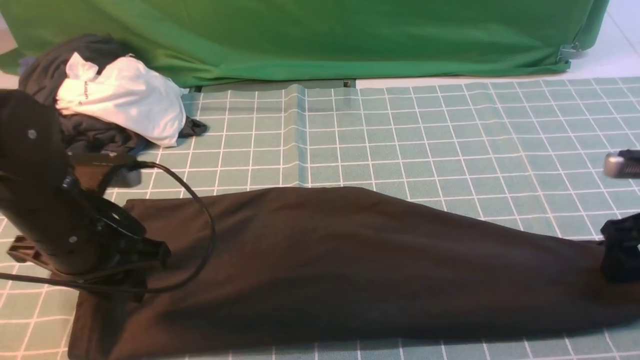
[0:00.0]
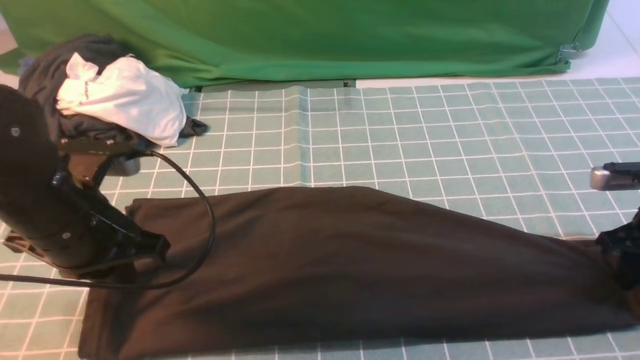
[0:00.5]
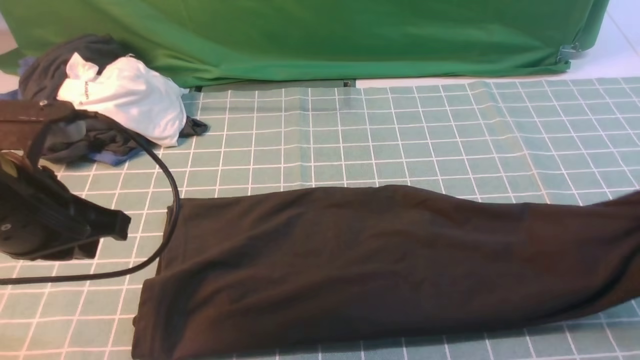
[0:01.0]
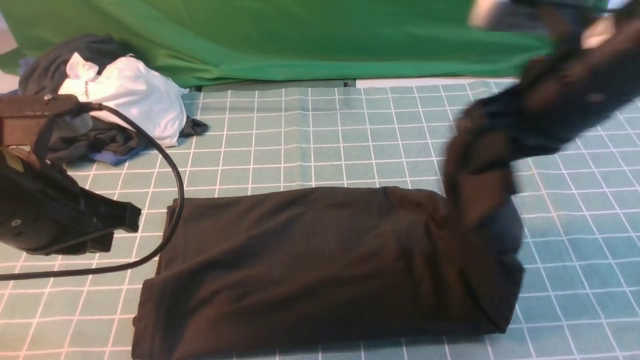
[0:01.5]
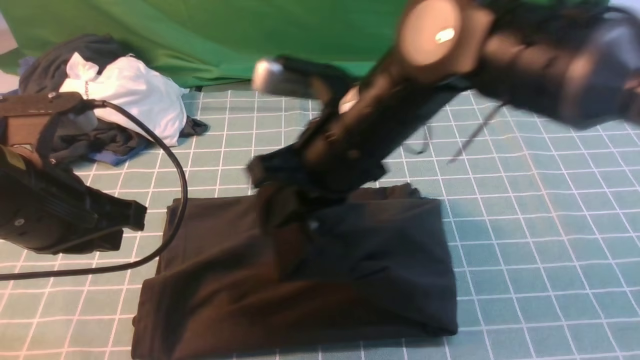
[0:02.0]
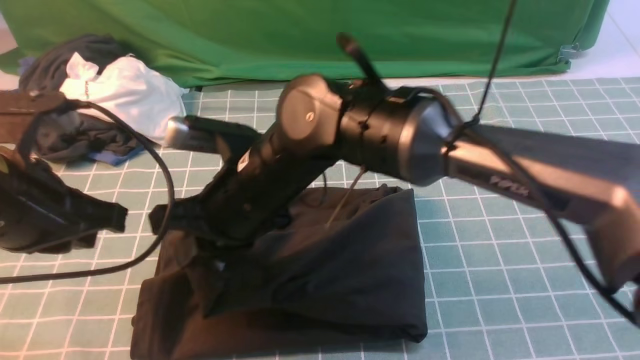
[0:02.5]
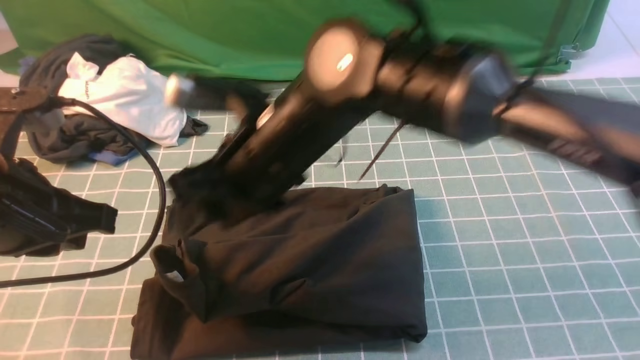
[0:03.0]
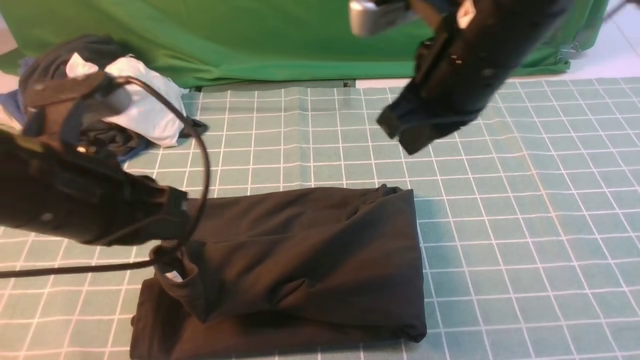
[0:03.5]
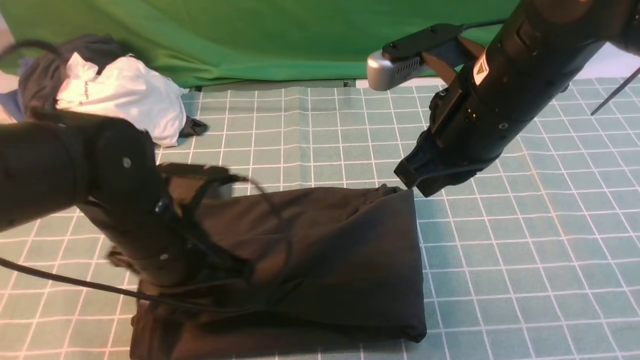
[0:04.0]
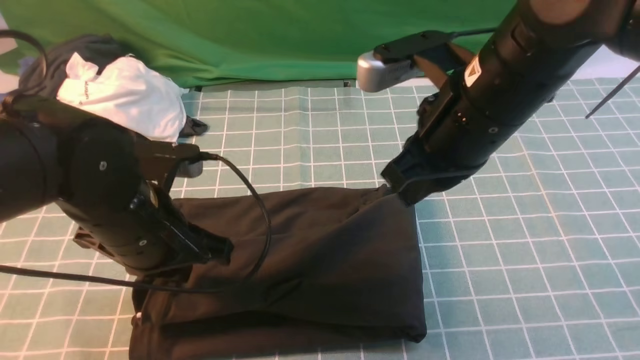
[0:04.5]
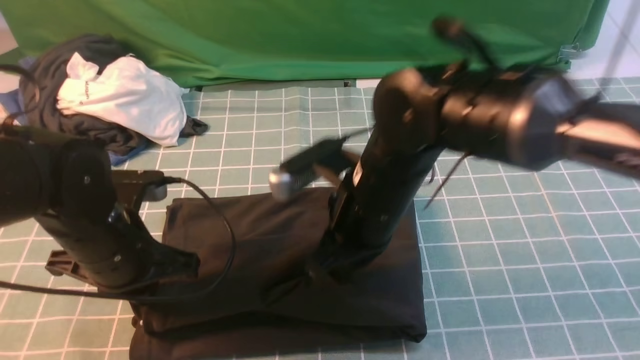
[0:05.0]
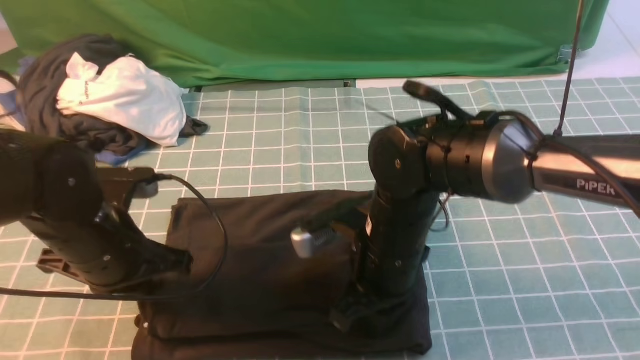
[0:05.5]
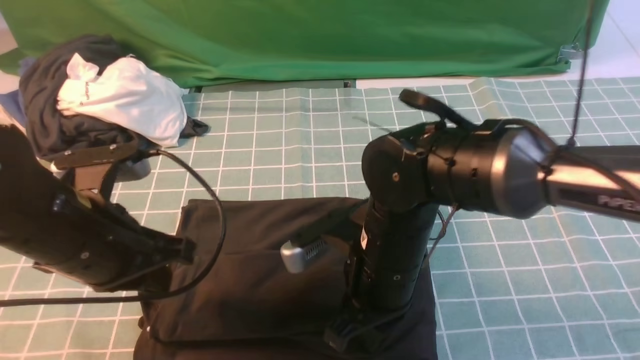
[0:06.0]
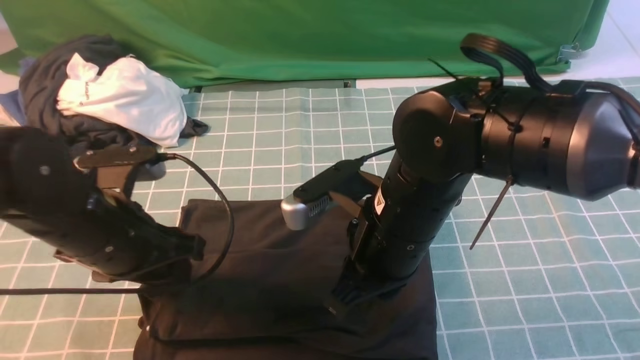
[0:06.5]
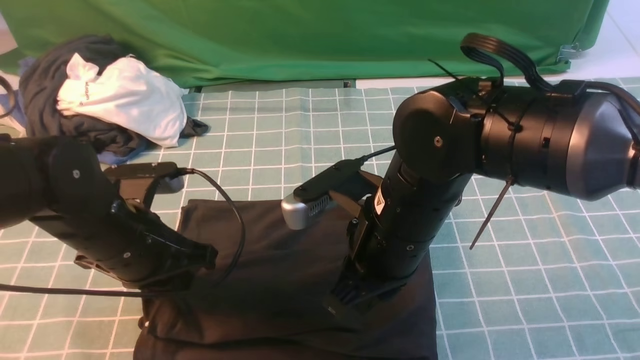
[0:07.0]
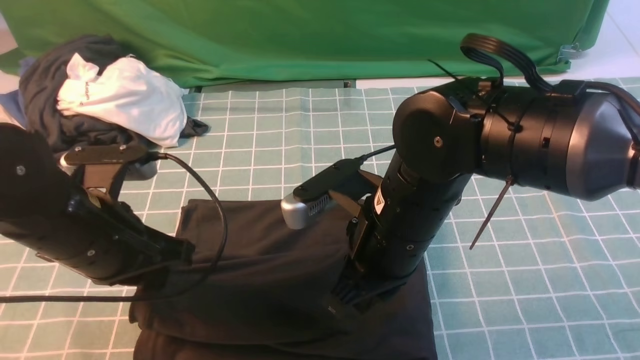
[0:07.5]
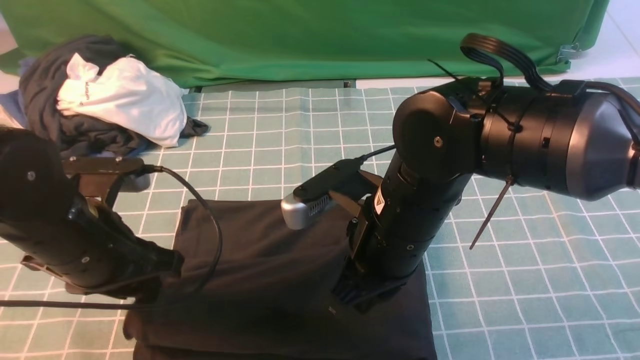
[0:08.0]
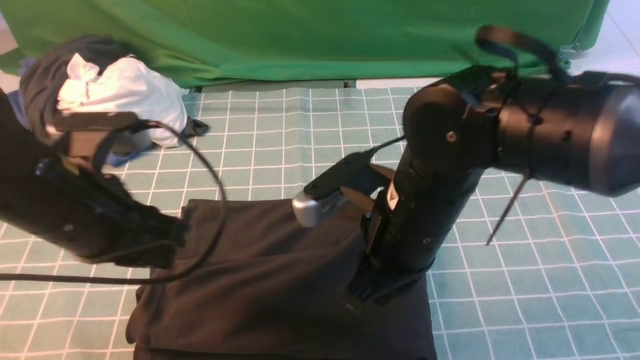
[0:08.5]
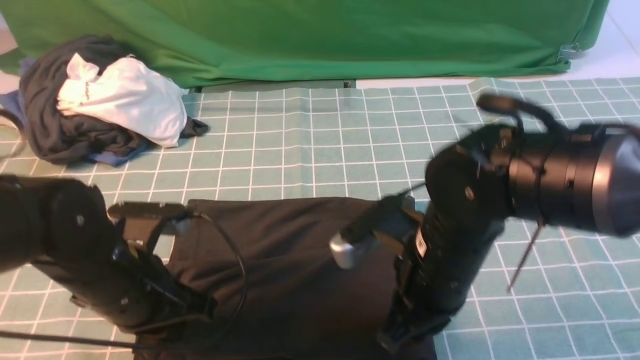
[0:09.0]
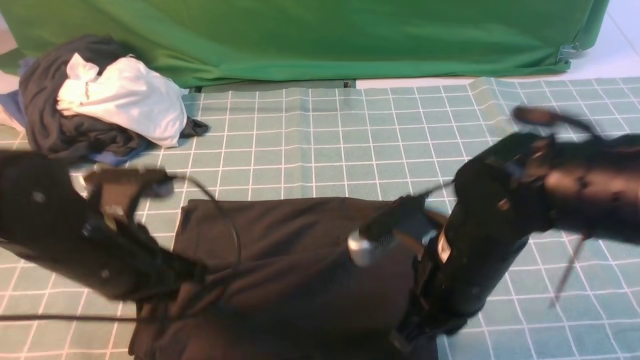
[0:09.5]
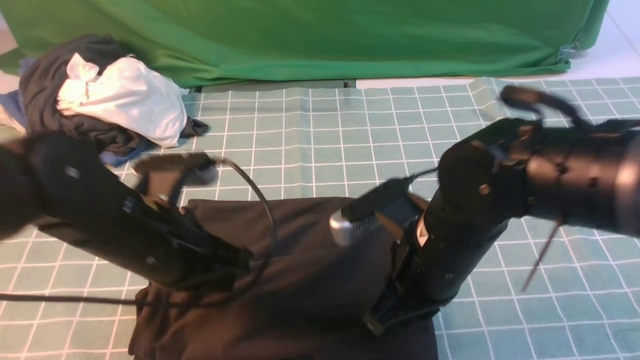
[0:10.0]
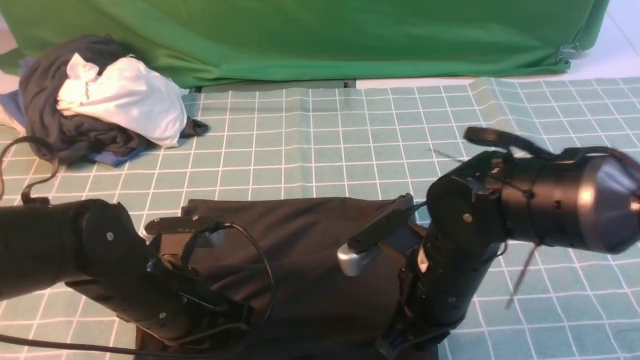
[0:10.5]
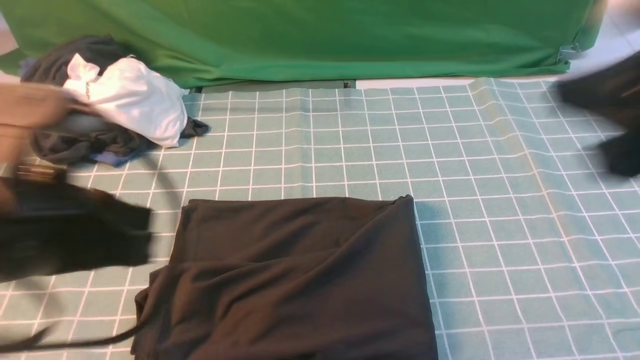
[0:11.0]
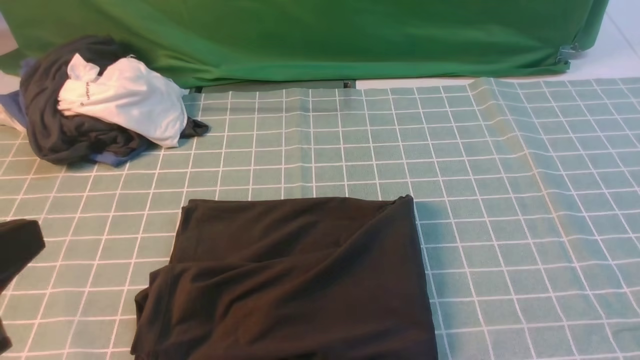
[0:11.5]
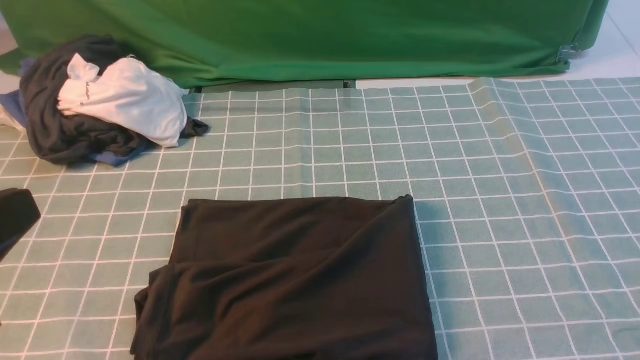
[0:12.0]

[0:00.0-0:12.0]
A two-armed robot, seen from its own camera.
Step, 0:01.0 to 0:03.5: use the right arm to drag the right edge of the fabric to the left and folds it over the left edge.
0:00.0 to 0:02.0: The left gripper travels upward by roughly 5 cm, and closes; the right gripper travels to the left by roughly 35 cm, and closes its fingers.
0:02.0 to 0:04.0: The right gripper goes some 10 cm to the right, and opens, then closes once more; the left gripper shifts roughly 10 cm to the right and downward, and opens.
0:04.0 to 0:06.0: The left gripper heads to the left, covering roughly 5 cm; the right gripper shifts approximately 15 cm downward and to the left.
0:06.0 to 0:08.0: The left gripper opens up.
0:08.0 to 0:10.0: The left gripper is displaced to the right by about 5 cm, moves about 5 cm downward and comes back, and closes.
0:10.0 to 0:12.0: The right gripper is displaced to the right, backward and upward by approximately 35 cm, while the left gripper moves backward, upward and to the left, roughly 25 cm.

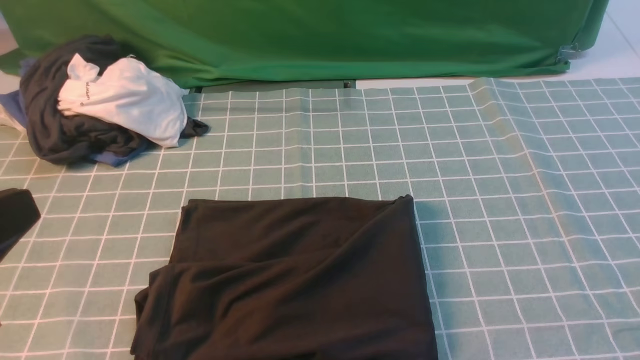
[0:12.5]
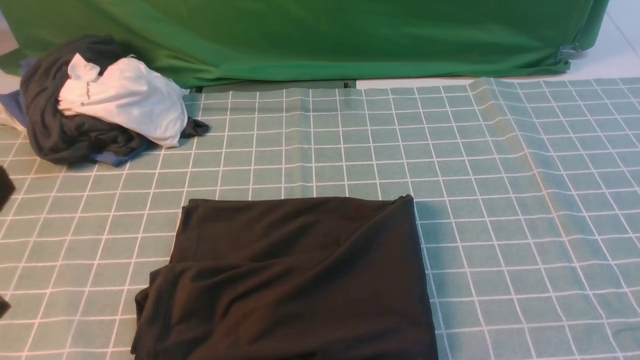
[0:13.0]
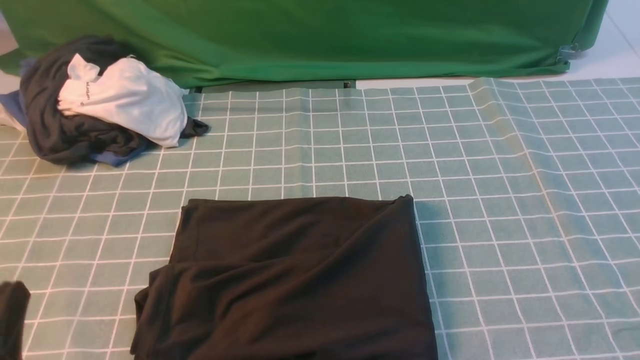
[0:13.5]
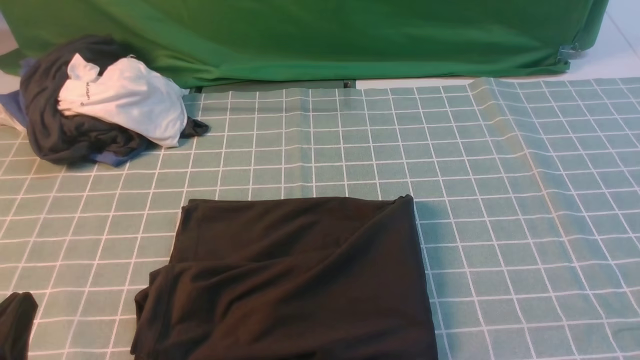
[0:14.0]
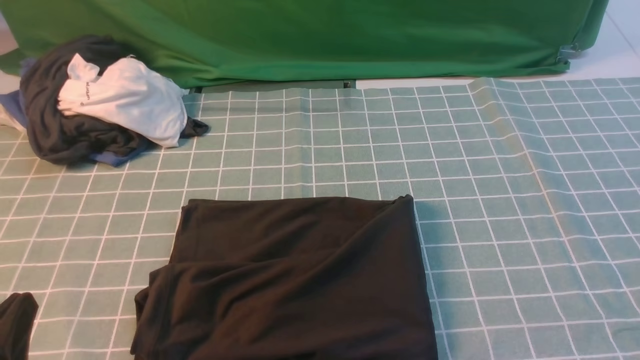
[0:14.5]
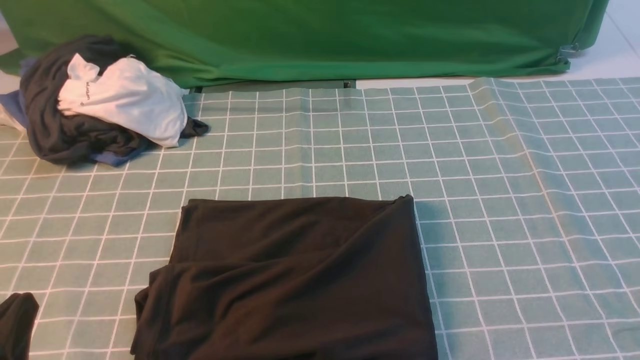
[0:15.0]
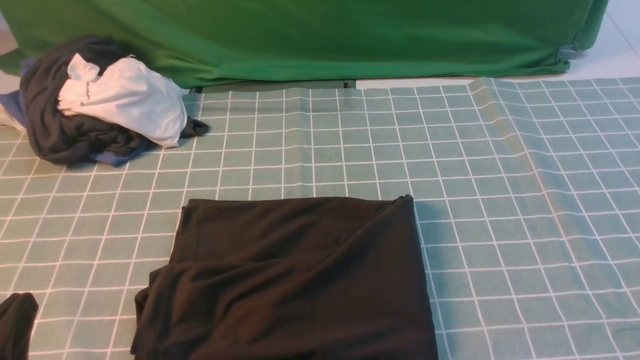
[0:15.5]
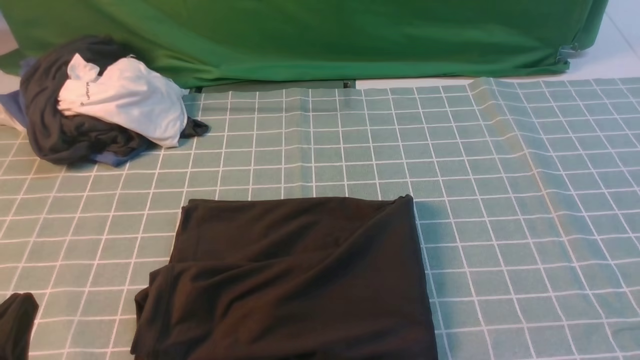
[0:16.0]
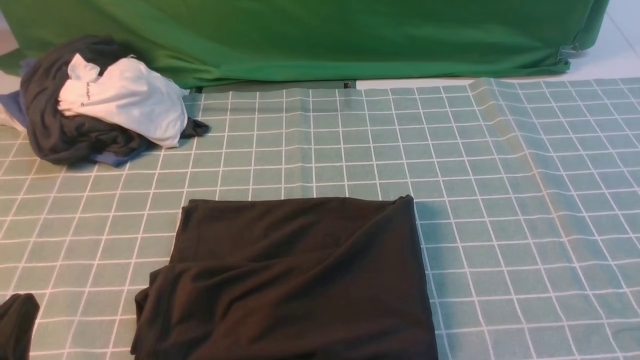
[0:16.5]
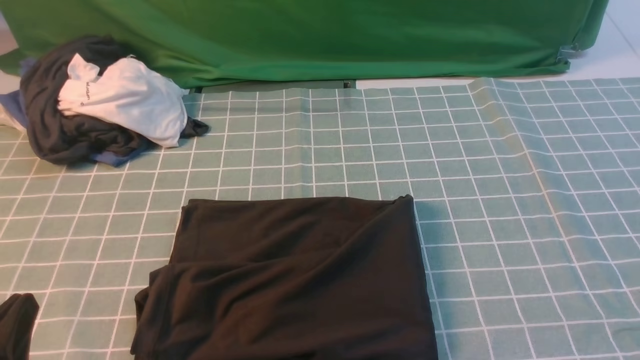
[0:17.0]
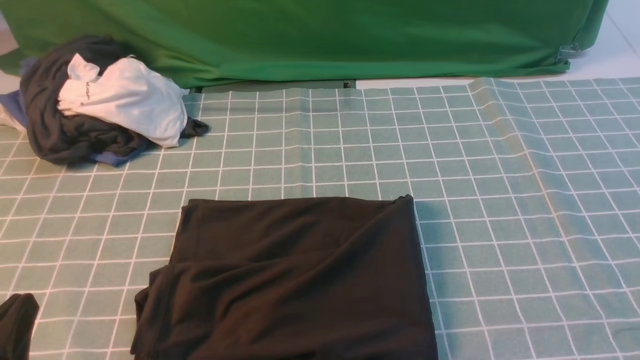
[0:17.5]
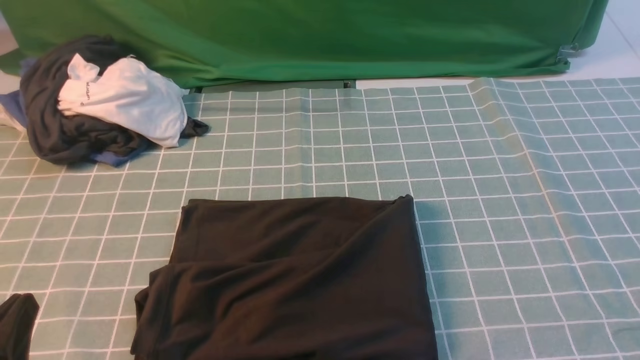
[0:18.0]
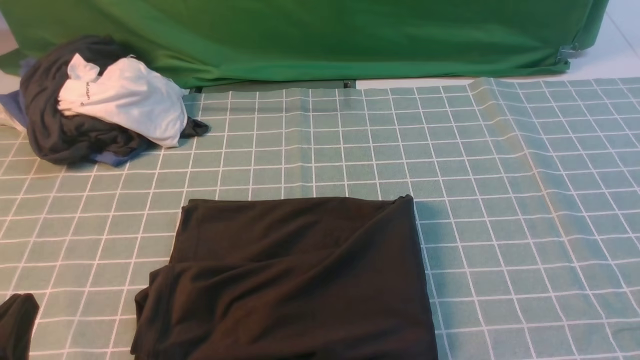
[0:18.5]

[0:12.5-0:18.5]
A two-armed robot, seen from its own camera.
0:12.5 to 0:14.5: The left gripper shifts approximately 15 cm downward.
0:16.5 to 0:18.5: The two grippers keep their place.

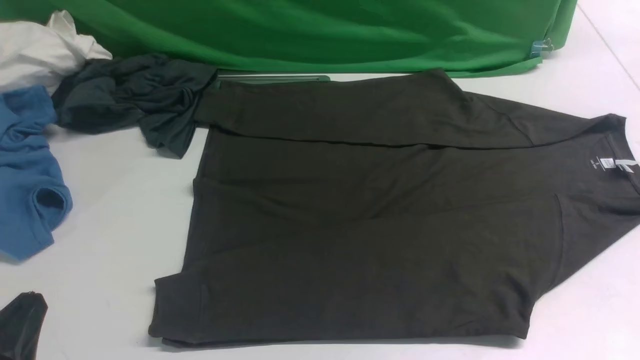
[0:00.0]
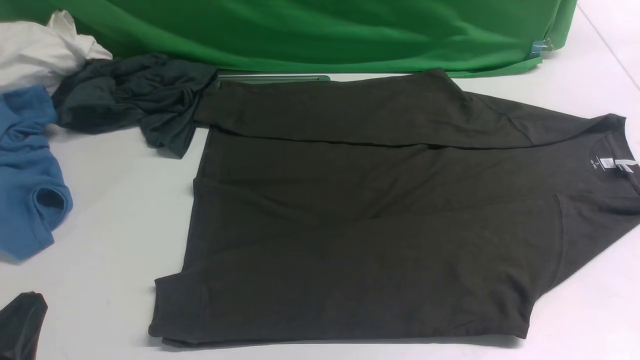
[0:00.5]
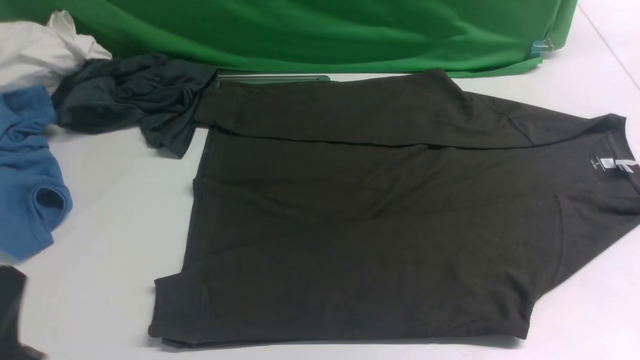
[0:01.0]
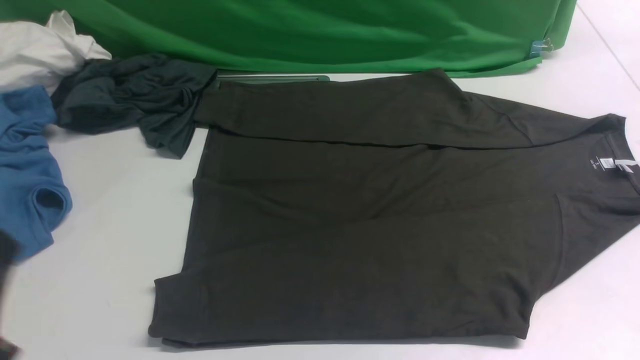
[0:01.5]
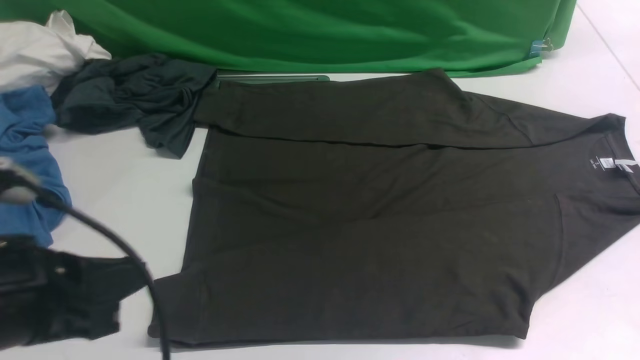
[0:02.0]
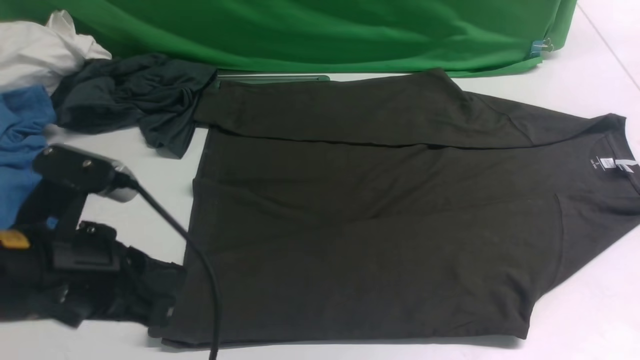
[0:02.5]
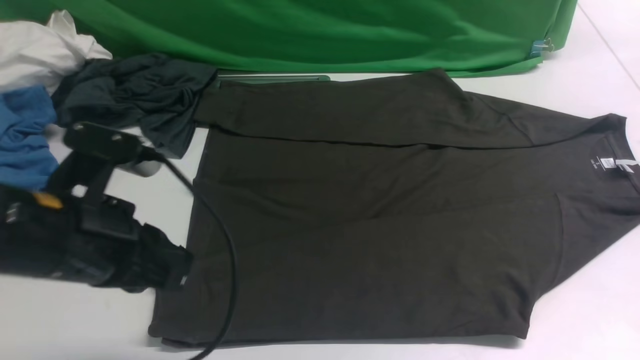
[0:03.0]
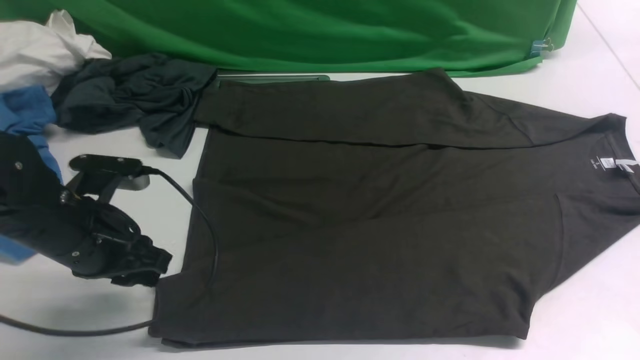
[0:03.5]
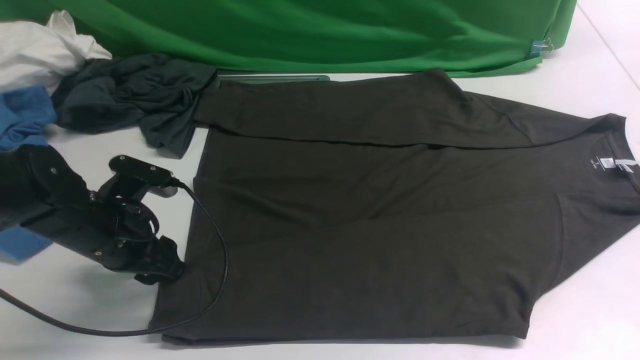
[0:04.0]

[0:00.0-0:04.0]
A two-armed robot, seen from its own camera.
0:00.0 to 0:02.0: The left gripper heads upward and forward, covering some 10 cm.
0:02.0 to 0:04.0: The left gripper is displaced forward and downward by some 20 cm, and opens its fingers.
